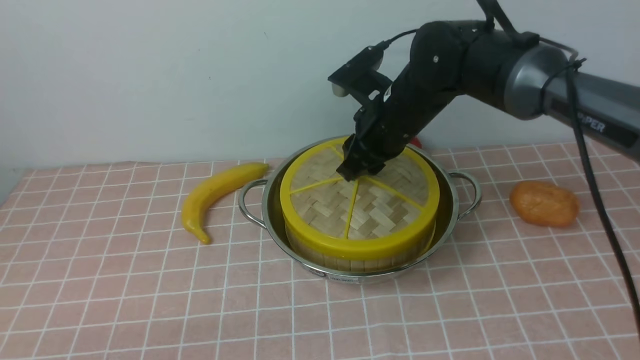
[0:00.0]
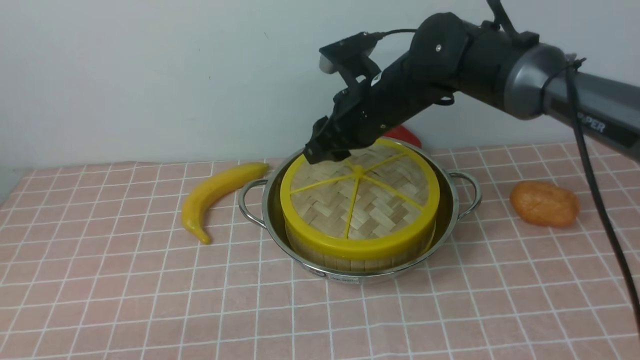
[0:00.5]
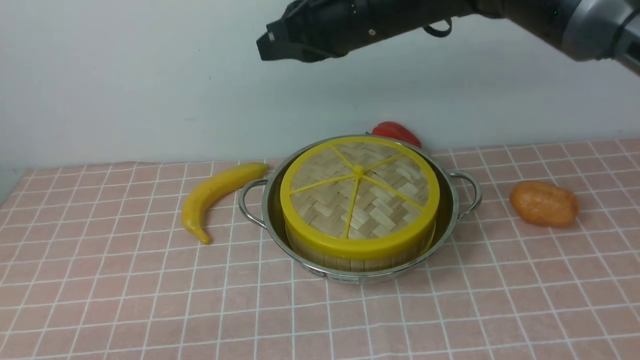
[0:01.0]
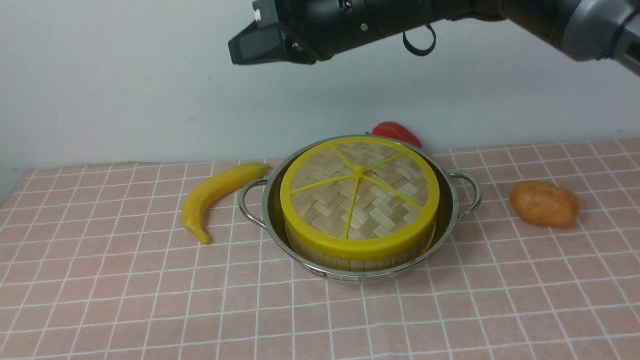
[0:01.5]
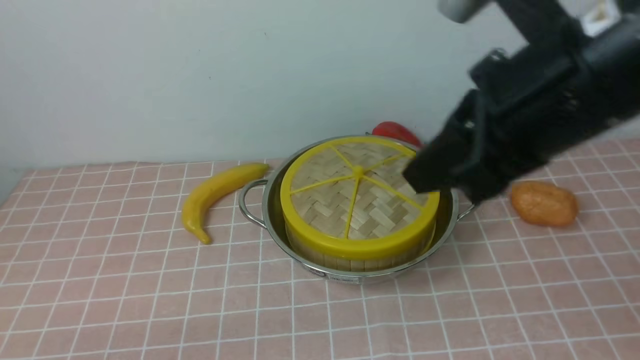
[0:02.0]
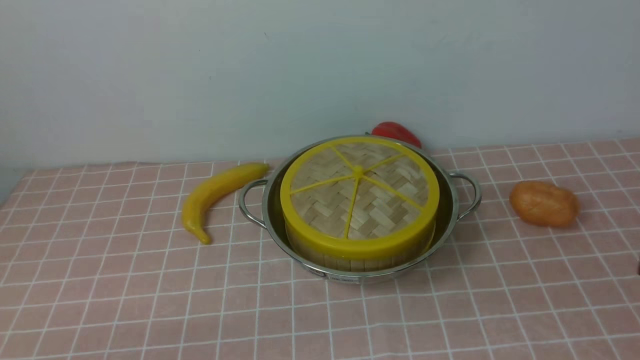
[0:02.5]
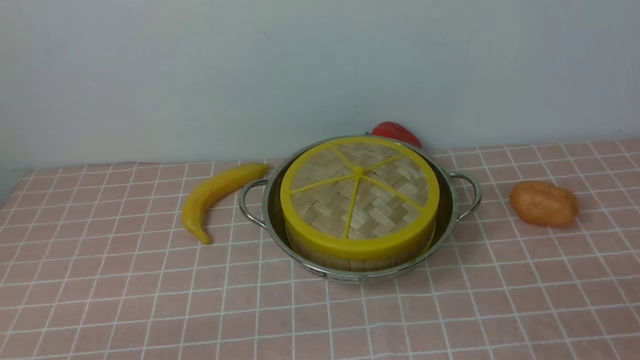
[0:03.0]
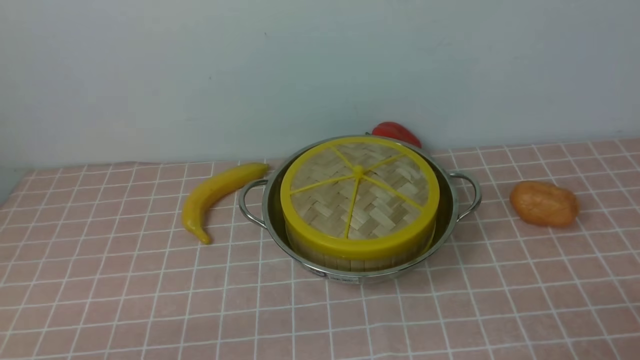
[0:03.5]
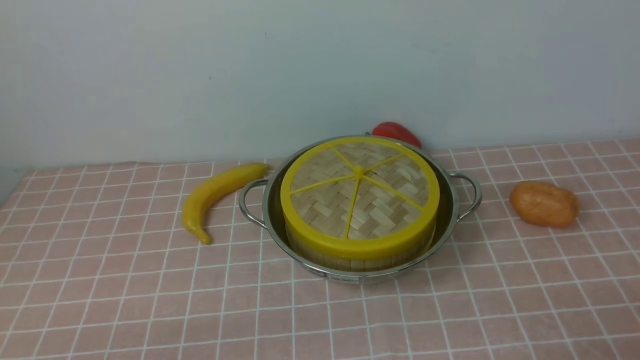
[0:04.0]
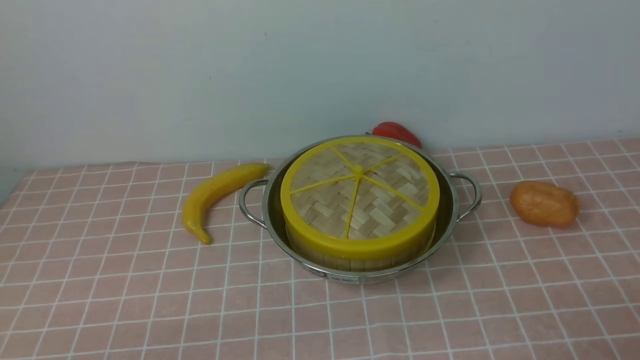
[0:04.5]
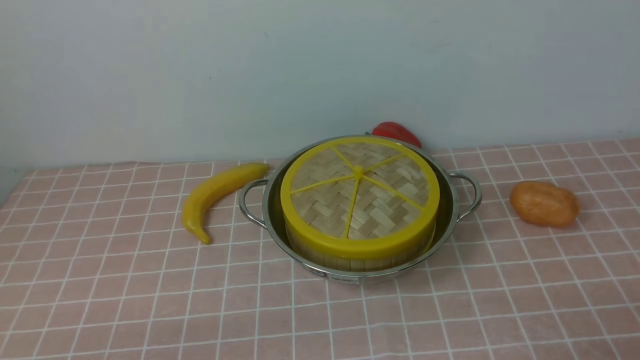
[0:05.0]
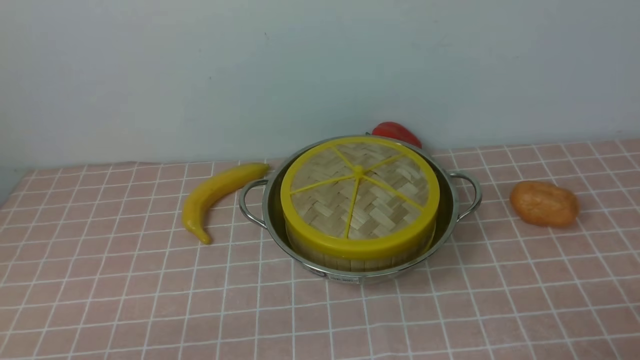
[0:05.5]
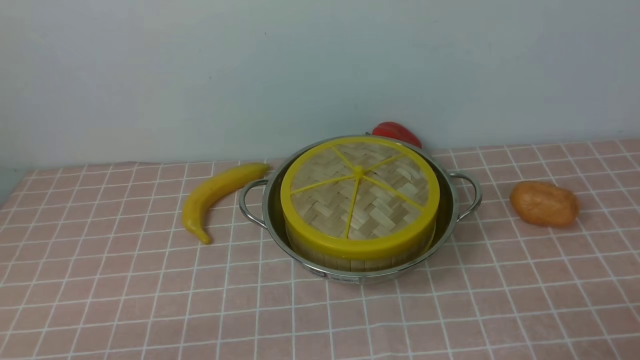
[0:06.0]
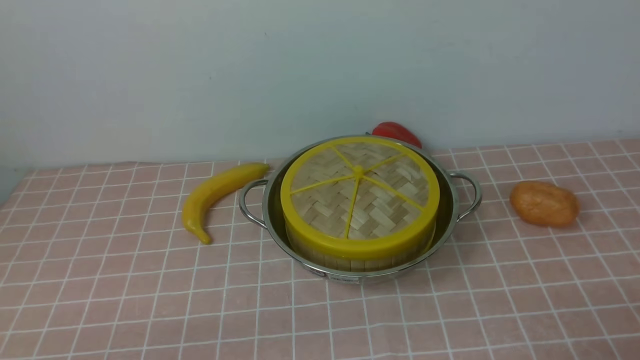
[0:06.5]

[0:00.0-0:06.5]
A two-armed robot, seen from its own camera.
Task of the whole recording: place the steamer in the pot on the pink tablecloth, and put the lid on the steamer.
0:00.0 to 0:02.0: The right gripper shifts roughly 25 cm backward and upward, and closes up.
0:02.0 to 0:04.5: The right gripper is displaced downward, backward and to the right by some 35 cm, and opens its fingers.
0:04.5 to 0:06.5: Both grippers stay put.
